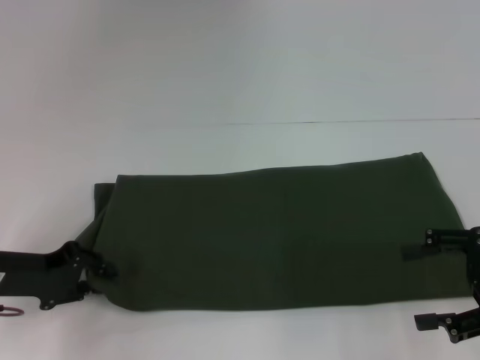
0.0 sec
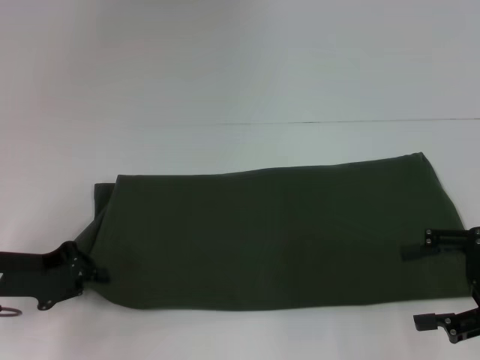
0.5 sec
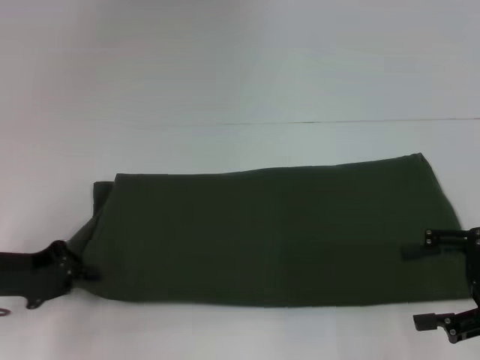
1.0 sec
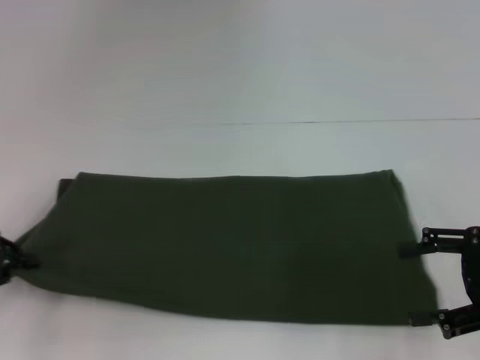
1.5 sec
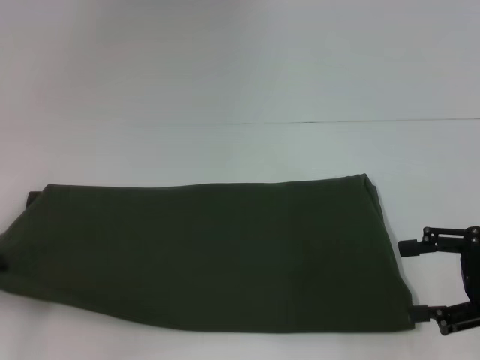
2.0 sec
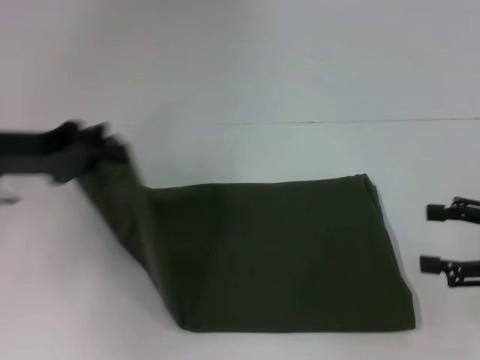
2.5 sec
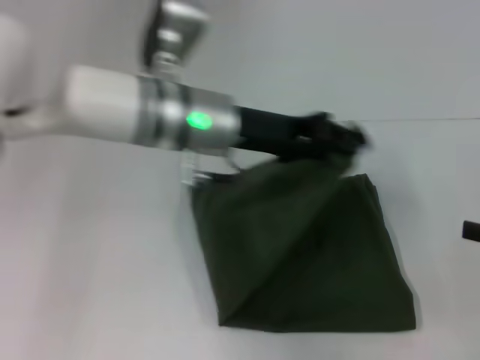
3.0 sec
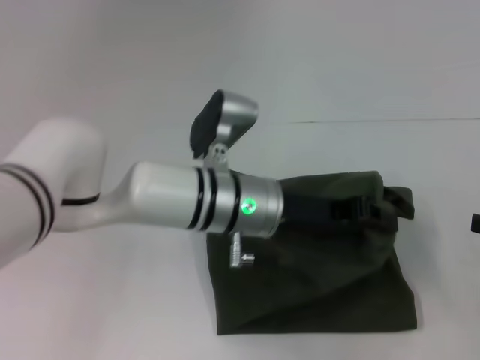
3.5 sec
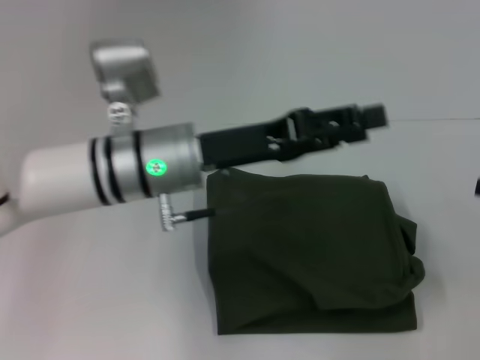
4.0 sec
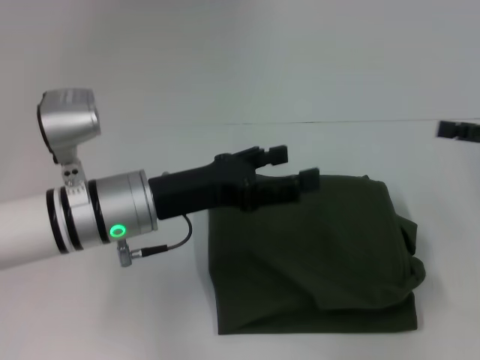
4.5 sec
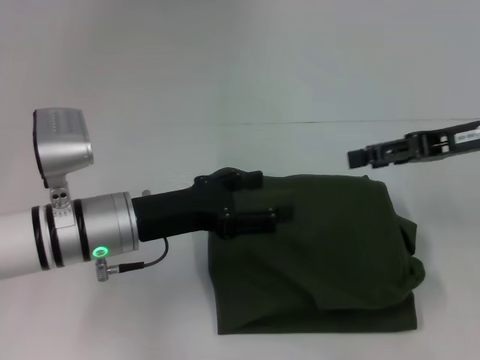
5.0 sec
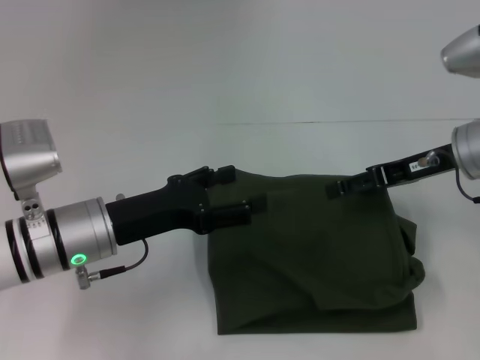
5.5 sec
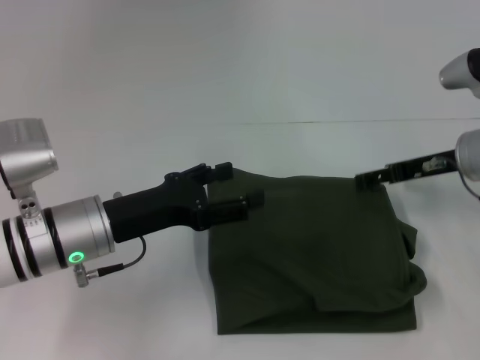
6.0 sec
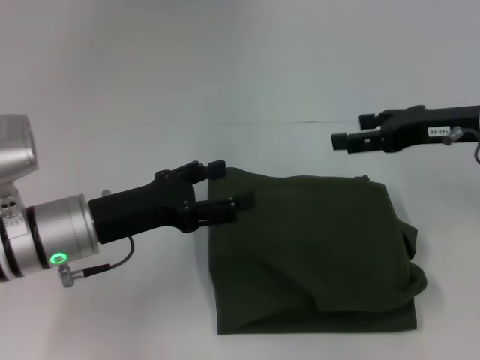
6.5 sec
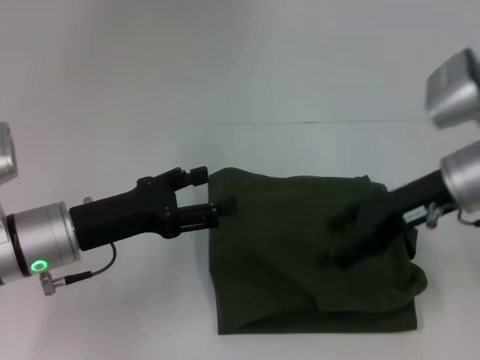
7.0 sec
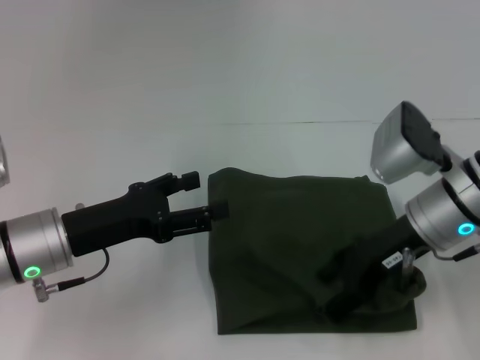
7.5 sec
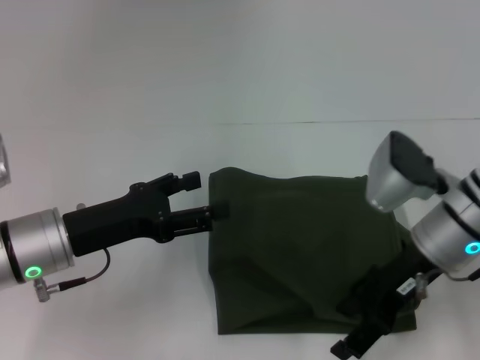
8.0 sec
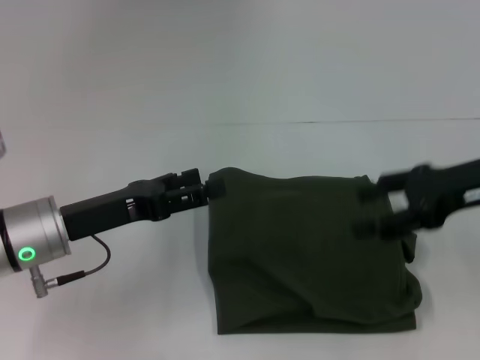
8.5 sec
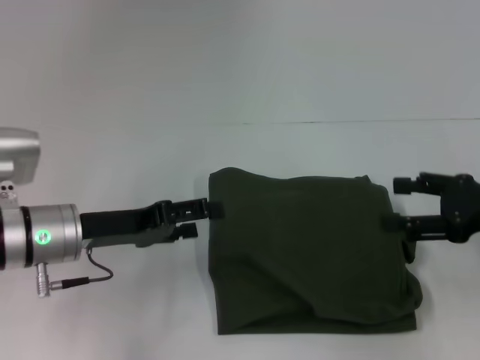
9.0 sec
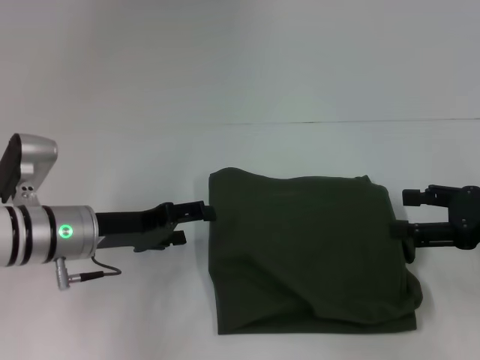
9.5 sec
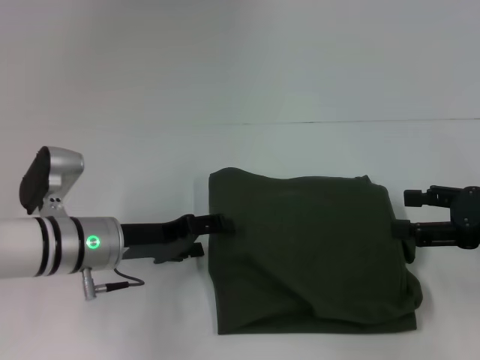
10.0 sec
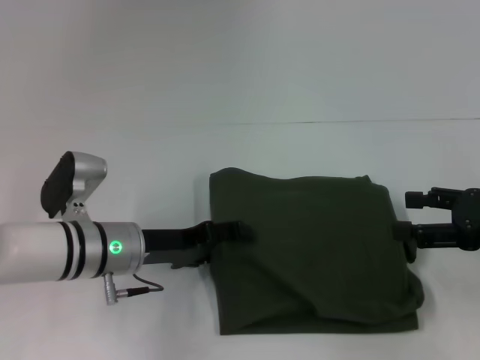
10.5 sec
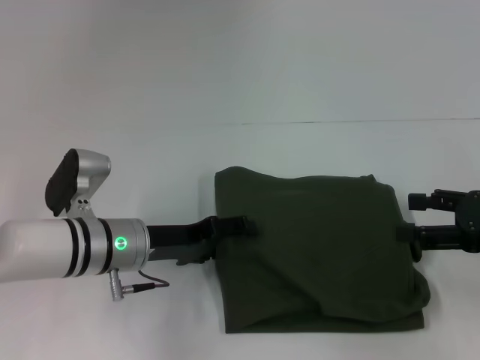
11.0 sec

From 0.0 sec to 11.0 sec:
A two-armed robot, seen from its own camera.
Step, from 0.0 sec to 3.5 sec: Fold the clothes with your left hand.
From 0.0 sec to 2.0 sec: The left gripper travels to the left by some 10 cm, and closes.
From 2.0 sec to 3.5 sec: The left gripper moves to the right, roughly 35 cm. Meanwhile the right gripper is displaced to the right by roughly 5 cm.
From 3.5 sec to 5.5 sec: The left gripper heads to the left, covering approximately 15 cm, and opens; the right gripper heads to the left and forward, covering about 20 cm.
From 5.5 sec to 7.5 sec: The right gripper is displaced to the left by approximately 5 cm.
From 7.5 sec to 9.0 sec: The right gripper travels to the right by some 15 cm.
From 9.0 sec to 11.0 sec: The left gripper travels to the right by roughly 5 cm.

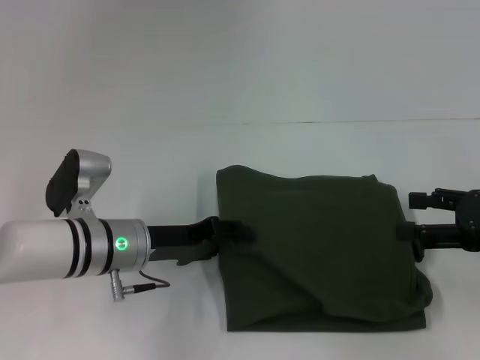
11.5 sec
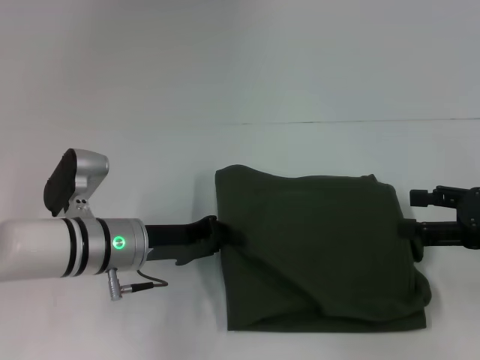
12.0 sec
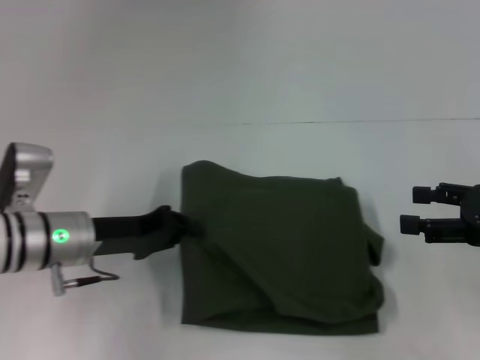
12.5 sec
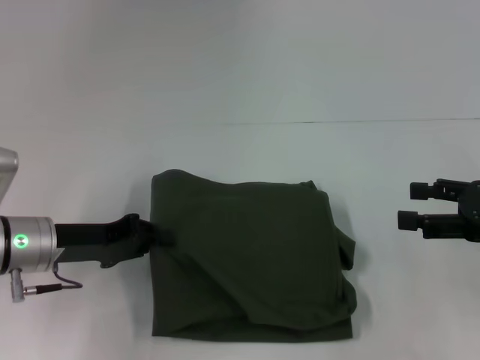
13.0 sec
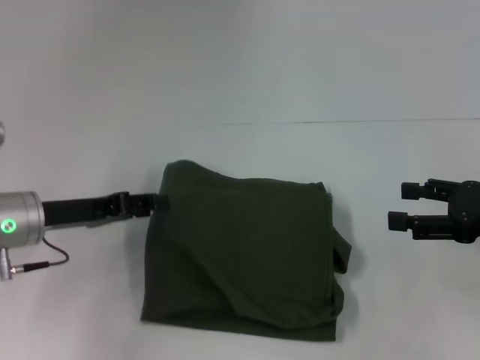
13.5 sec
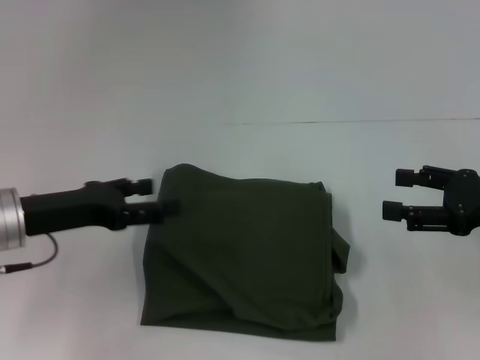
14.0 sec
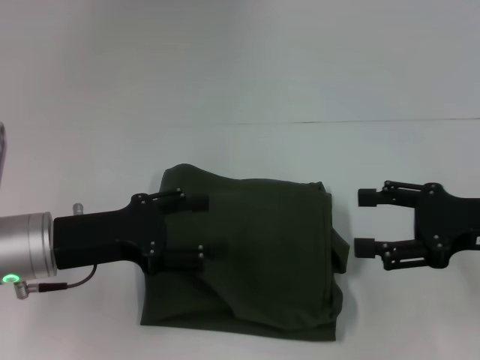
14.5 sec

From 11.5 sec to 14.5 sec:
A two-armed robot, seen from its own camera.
From 11.5 sec to 13.0 sec: The left gripper moves to the left, some 10 cm, and closes.
From 13.0 sec to 14.5 sec: The left gripper opens.
